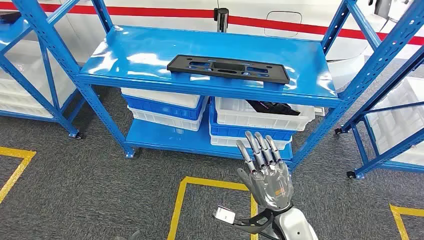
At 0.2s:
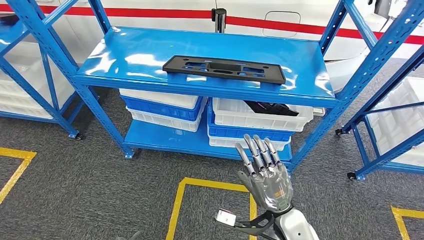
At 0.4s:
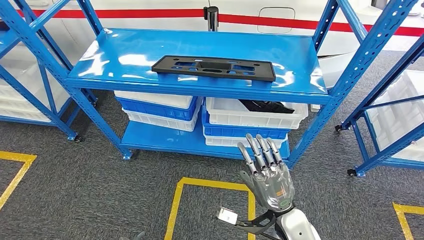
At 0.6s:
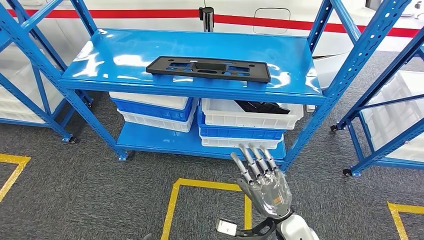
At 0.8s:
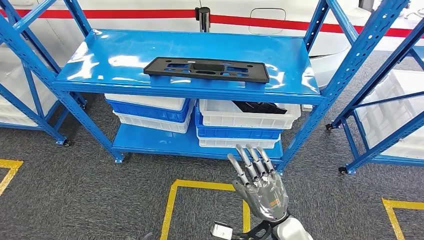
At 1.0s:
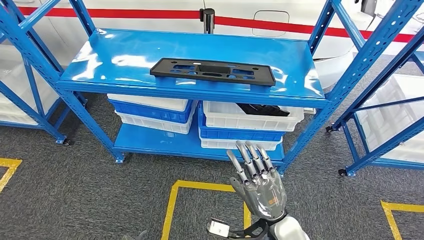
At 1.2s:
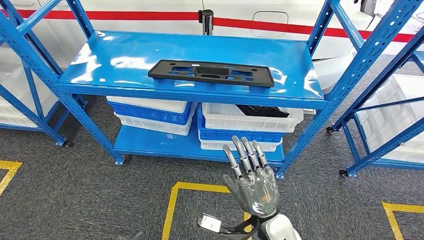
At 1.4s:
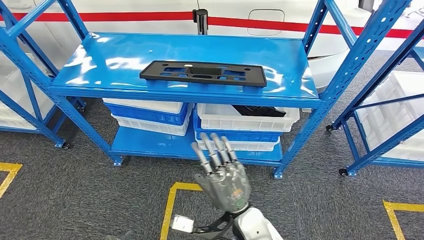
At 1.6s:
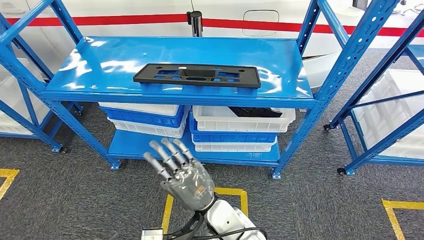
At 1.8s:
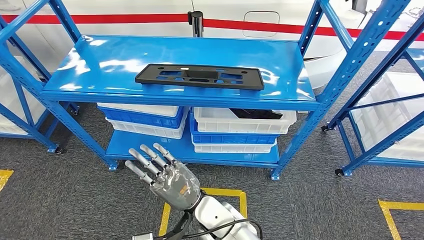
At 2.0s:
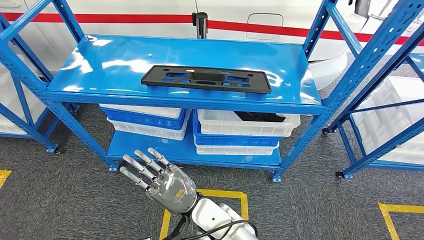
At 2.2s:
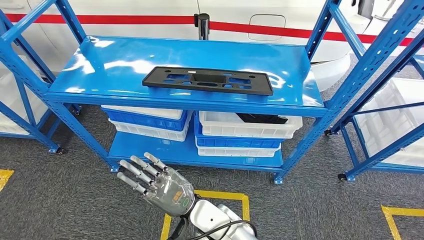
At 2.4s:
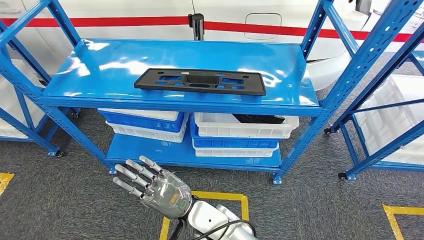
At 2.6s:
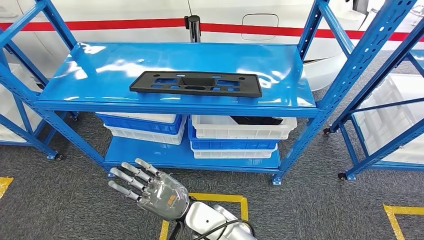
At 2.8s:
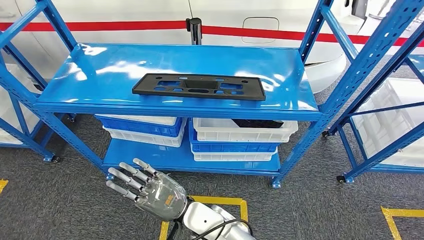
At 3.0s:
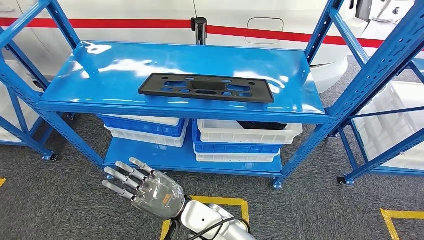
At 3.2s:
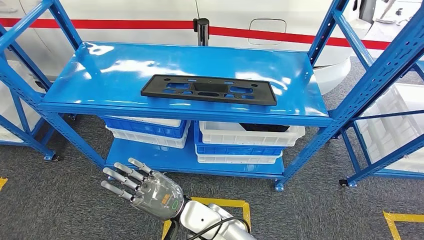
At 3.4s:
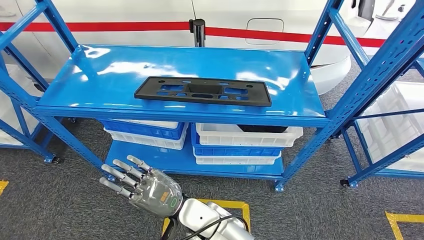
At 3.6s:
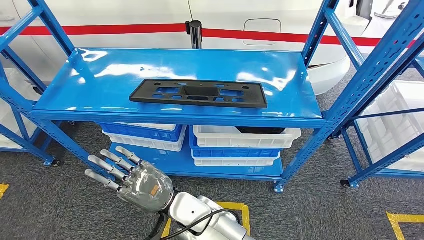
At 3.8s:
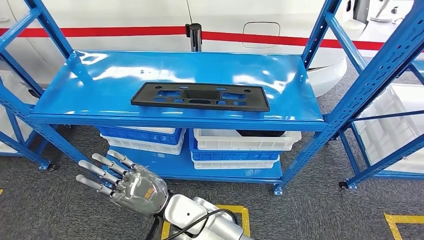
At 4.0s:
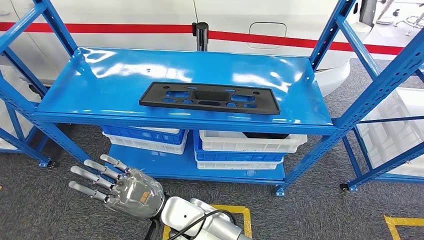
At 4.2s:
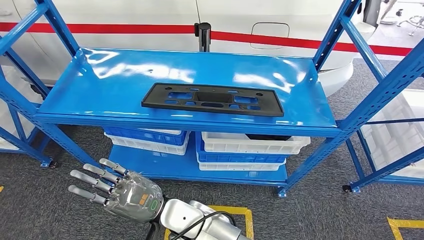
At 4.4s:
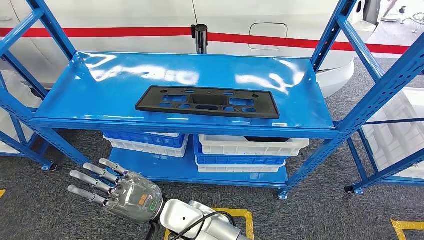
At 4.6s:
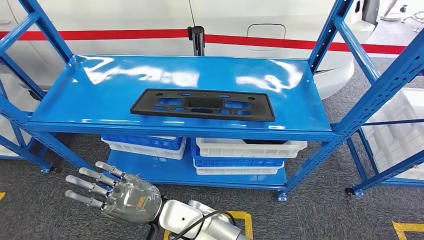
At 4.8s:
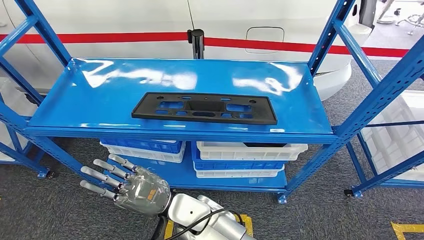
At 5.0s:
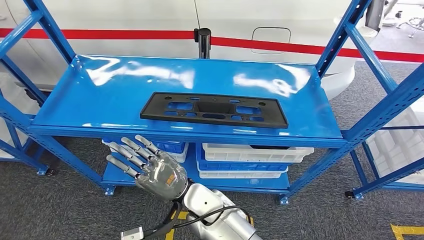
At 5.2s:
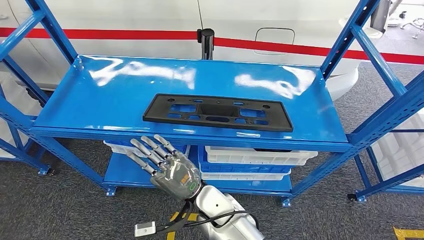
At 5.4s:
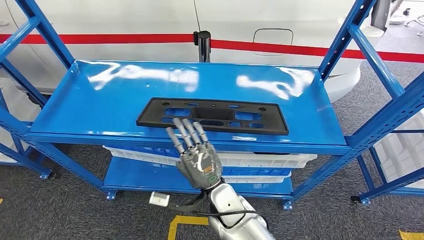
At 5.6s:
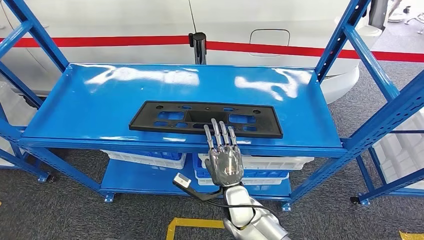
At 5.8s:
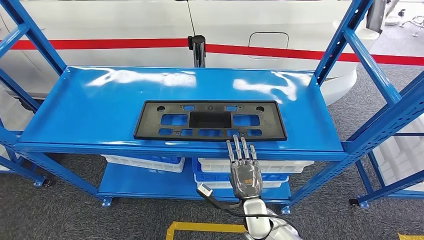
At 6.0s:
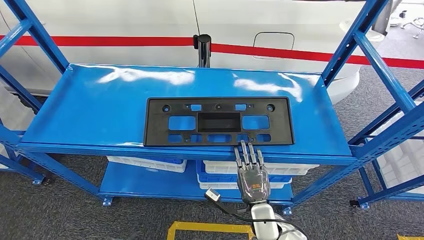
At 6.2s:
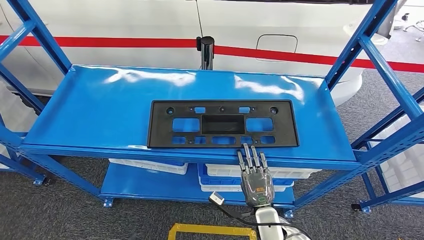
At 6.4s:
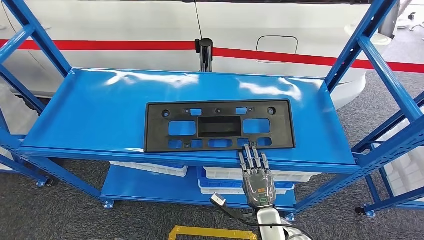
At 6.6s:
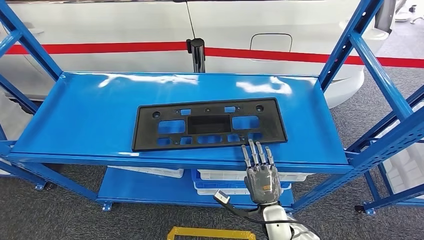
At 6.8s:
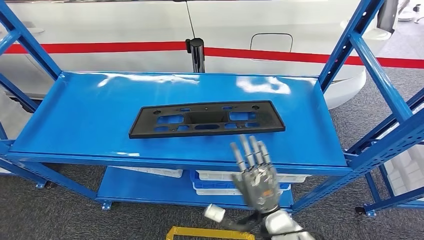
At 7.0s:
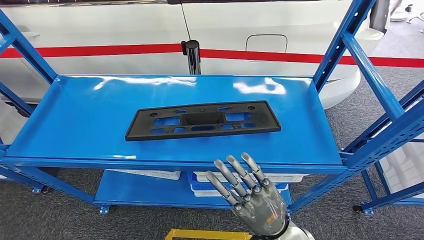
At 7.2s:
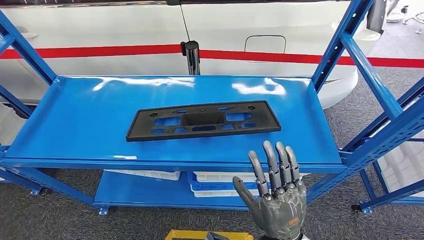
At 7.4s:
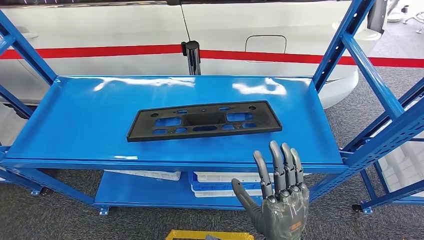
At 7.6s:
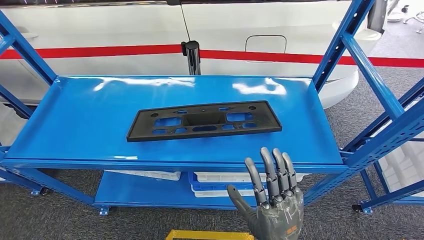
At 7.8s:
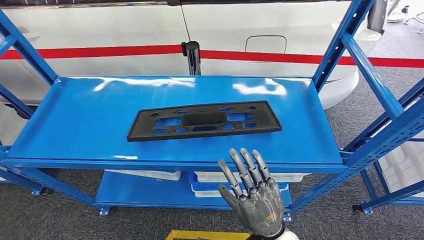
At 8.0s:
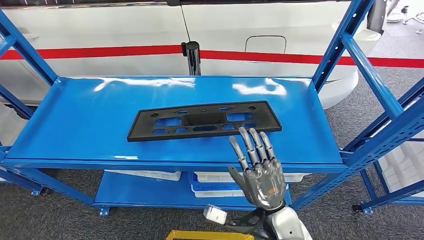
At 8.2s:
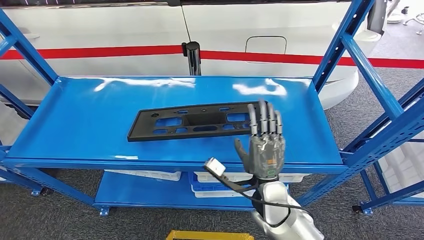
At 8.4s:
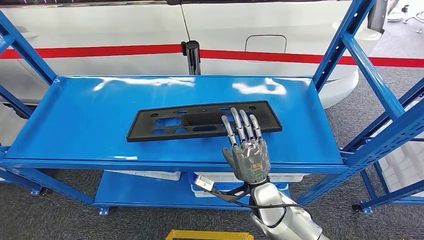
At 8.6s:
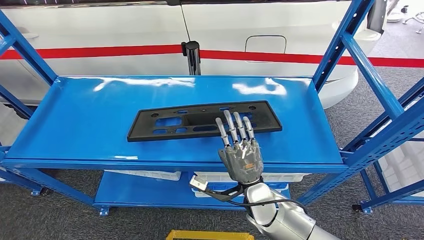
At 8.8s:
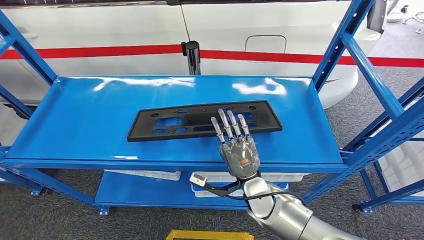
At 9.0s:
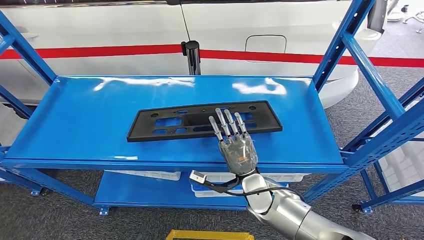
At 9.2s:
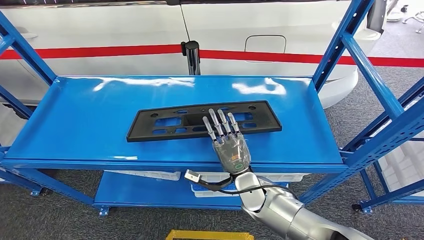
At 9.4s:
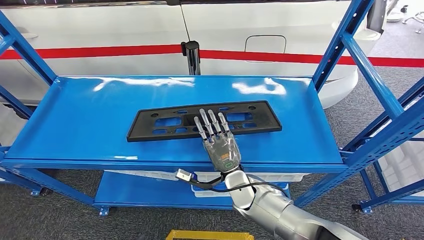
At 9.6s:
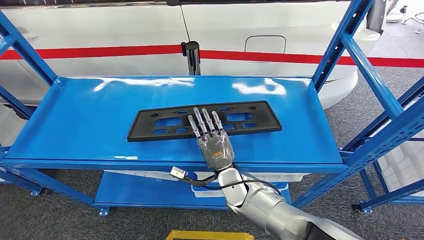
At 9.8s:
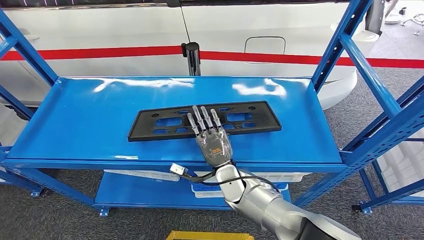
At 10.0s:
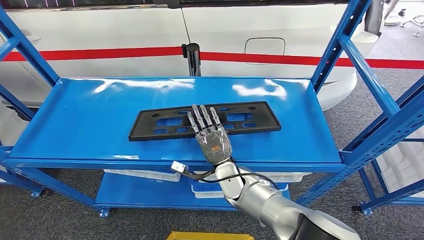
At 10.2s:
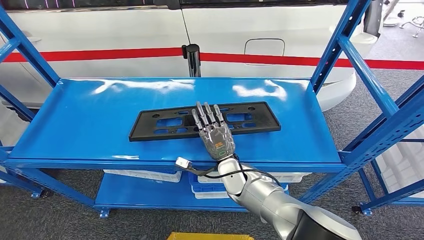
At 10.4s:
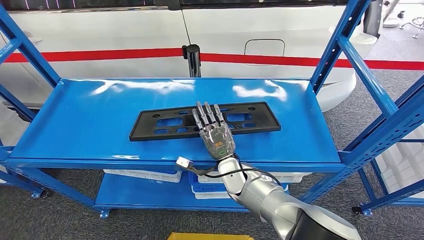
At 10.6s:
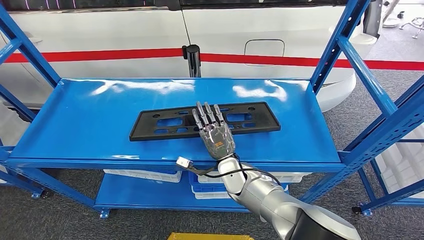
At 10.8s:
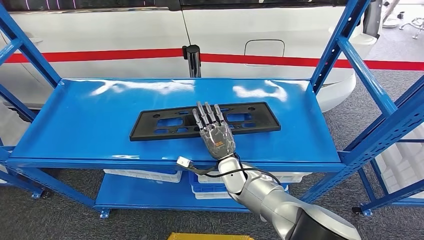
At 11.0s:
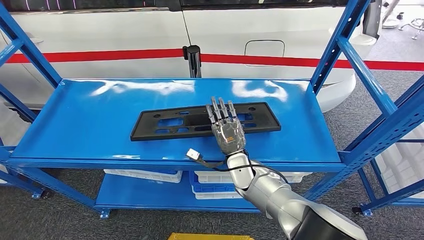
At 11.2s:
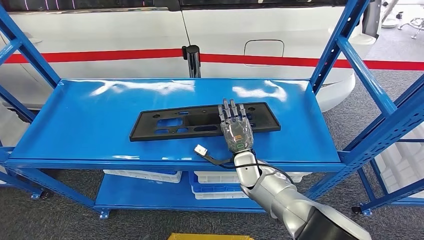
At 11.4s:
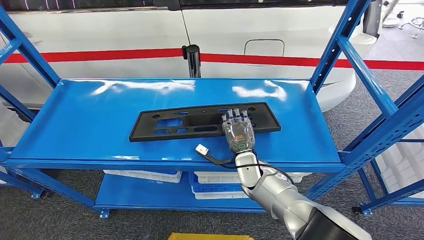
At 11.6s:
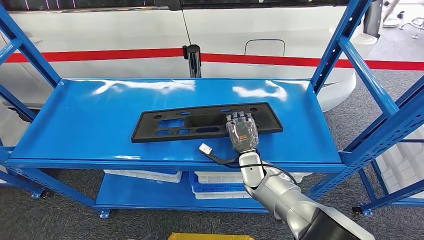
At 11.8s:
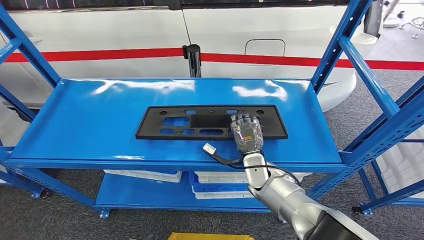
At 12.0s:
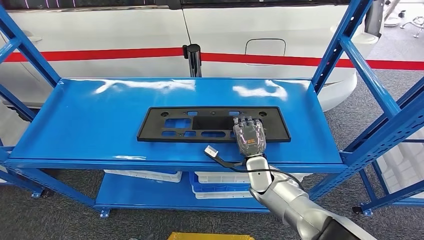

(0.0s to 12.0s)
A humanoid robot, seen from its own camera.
7.6s - 9.0s: The right hand is displaced forward and downward by approximately 20 cm.
10.4s - 12.0s: The right hand is displaced to the right by about 5 cm.

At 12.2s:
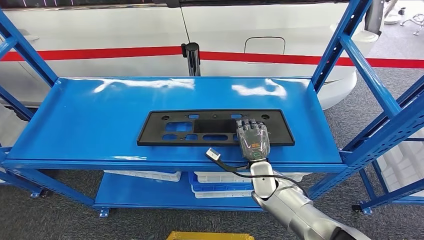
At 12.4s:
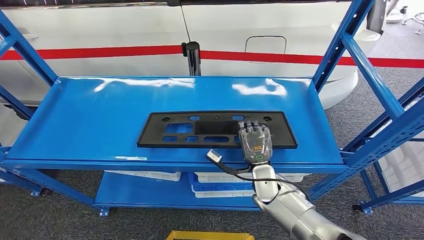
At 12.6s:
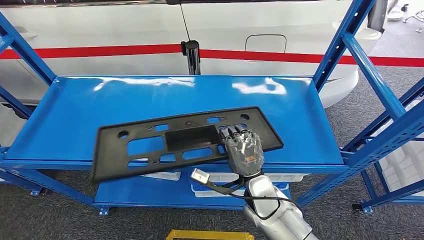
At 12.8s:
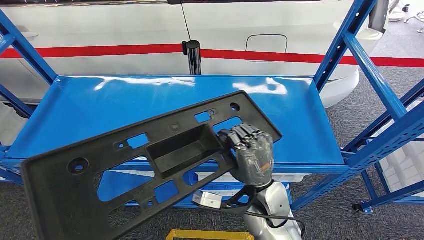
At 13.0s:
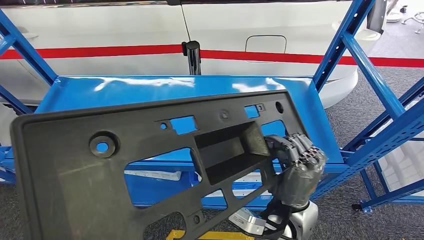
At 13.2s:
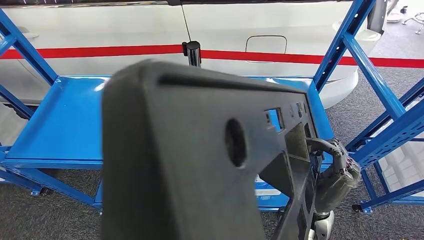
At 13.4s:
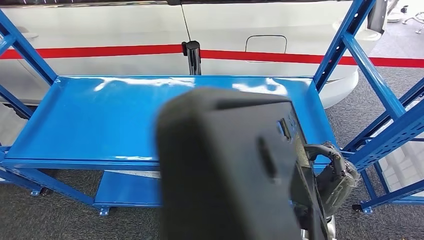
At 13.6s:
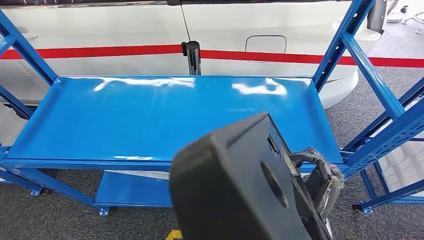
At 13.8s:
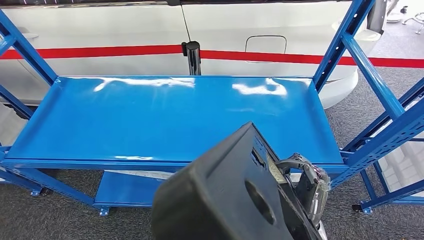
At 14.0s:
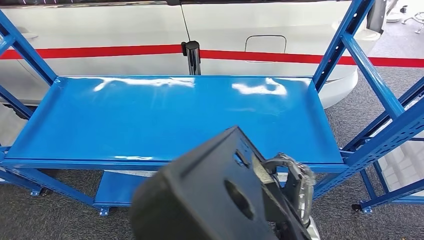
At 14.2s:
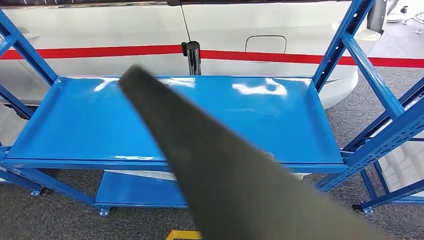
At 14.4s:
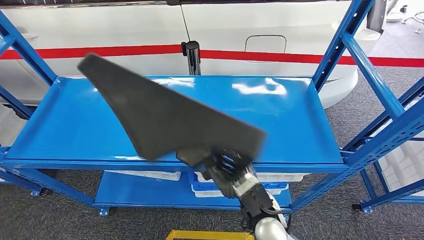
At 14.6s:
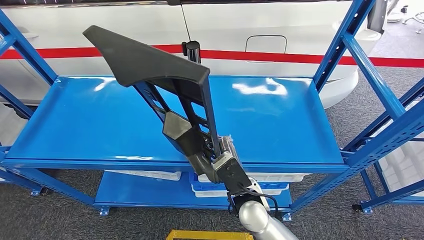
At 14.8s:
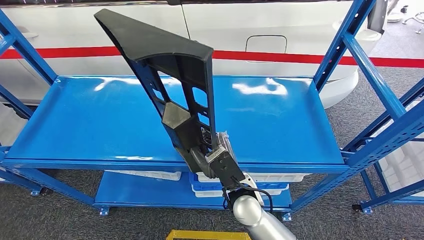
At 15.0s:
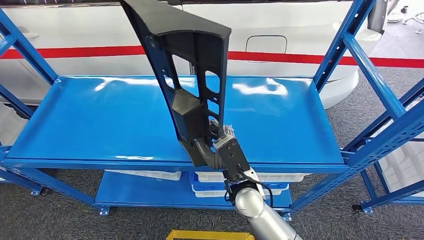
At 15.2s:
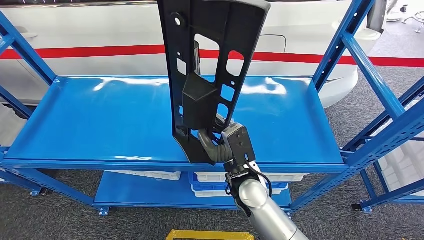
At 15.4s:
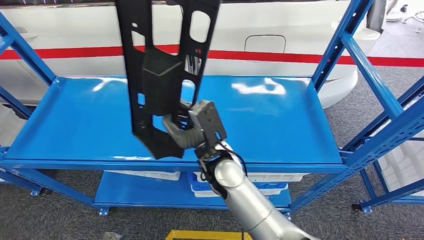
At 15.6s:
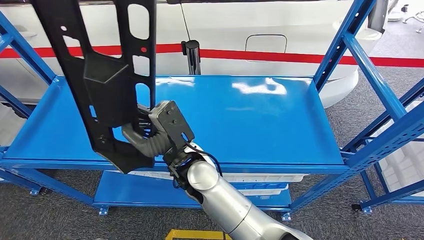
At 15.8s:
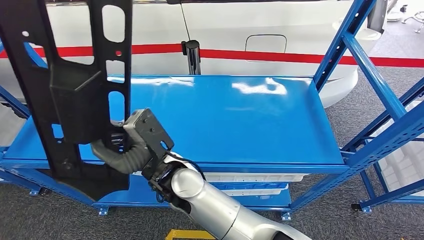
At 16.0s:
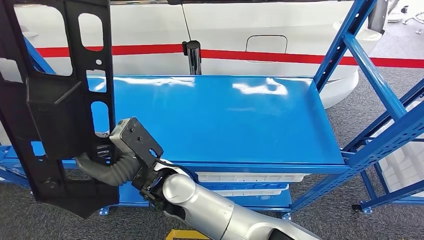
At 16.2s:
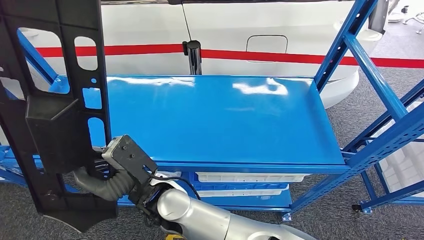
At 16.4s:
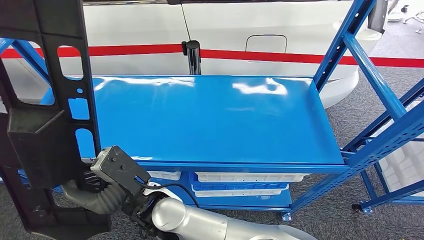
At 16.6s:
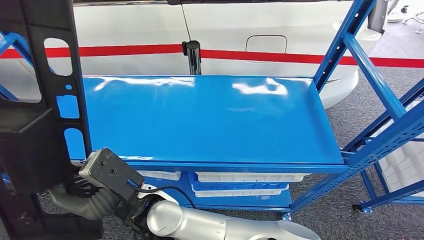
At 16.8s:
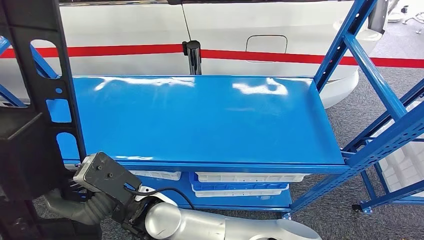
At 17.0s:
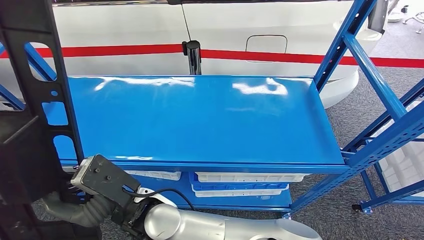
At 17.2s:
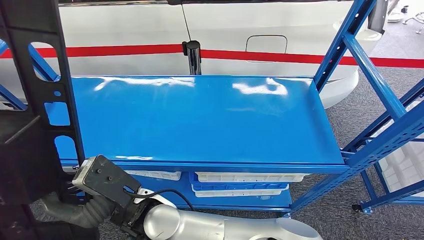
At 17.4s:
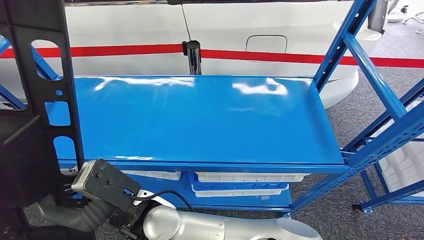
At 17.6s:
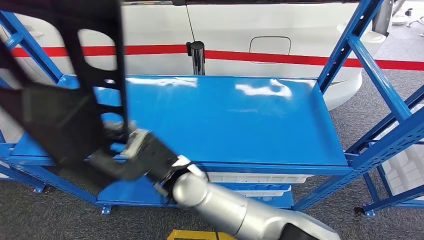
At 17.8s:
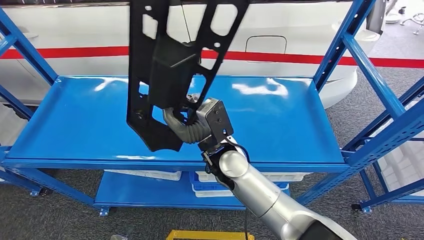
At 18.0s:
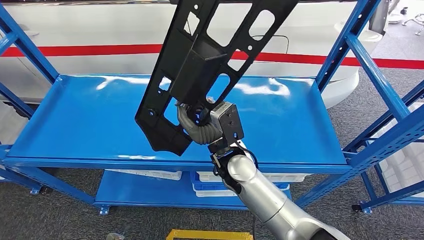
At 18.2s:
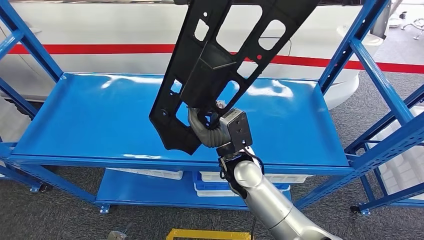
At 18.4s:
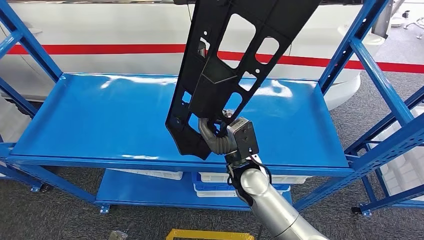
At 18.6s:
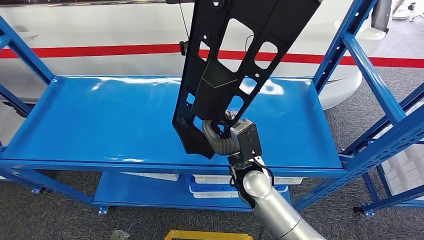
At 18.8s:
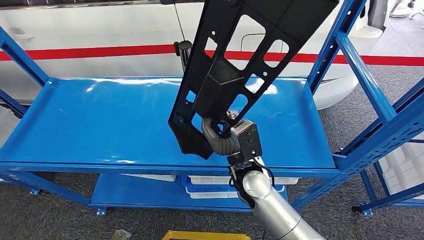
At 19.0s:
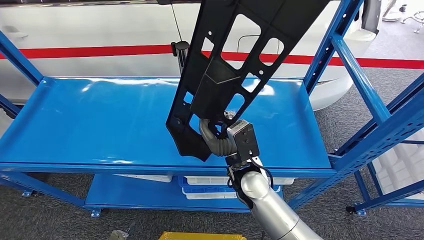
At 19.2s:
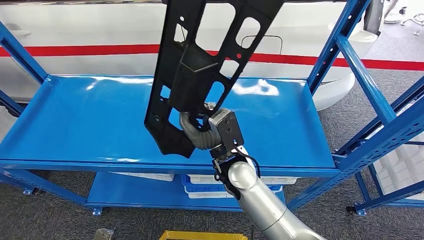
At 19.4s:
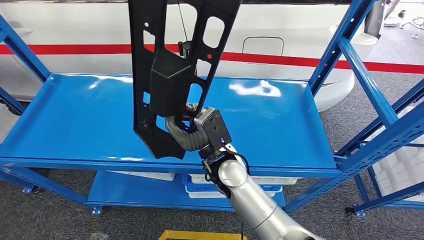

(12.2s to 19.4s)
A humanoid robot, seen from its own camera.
Step, 12.2s - 16.6s: Pick up the large material from the shelf.
